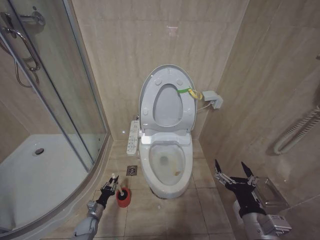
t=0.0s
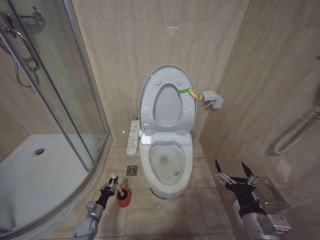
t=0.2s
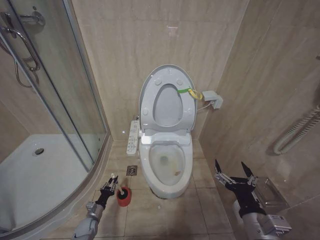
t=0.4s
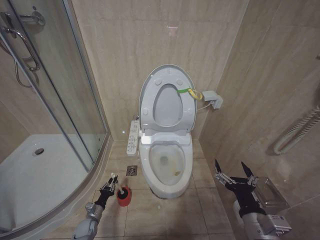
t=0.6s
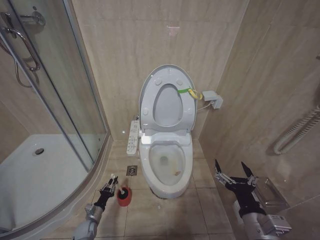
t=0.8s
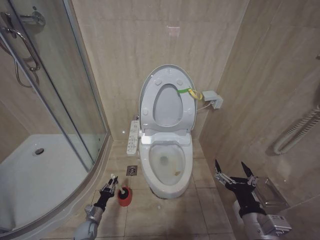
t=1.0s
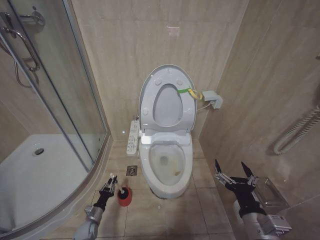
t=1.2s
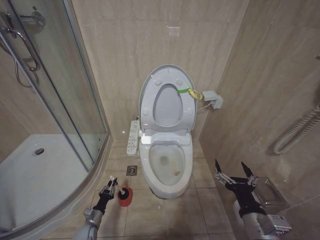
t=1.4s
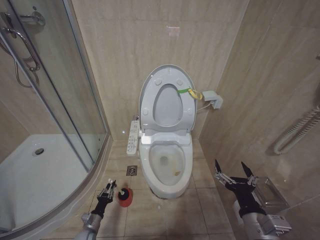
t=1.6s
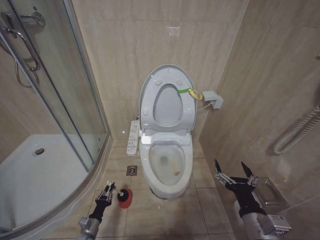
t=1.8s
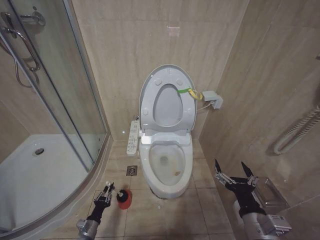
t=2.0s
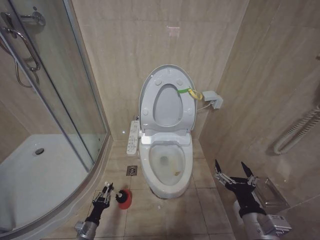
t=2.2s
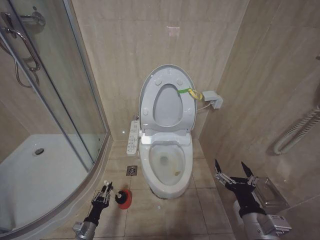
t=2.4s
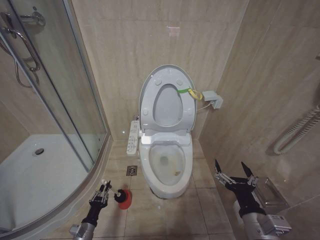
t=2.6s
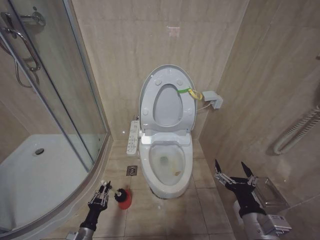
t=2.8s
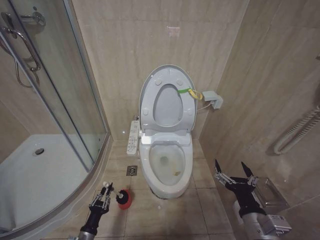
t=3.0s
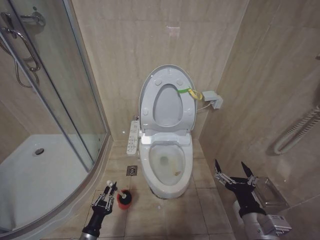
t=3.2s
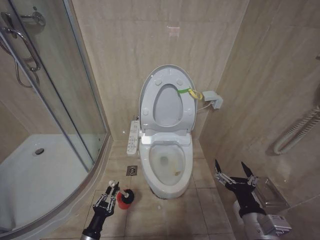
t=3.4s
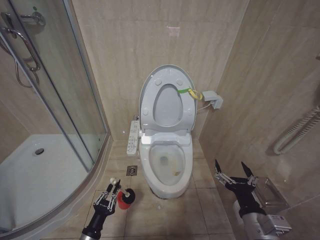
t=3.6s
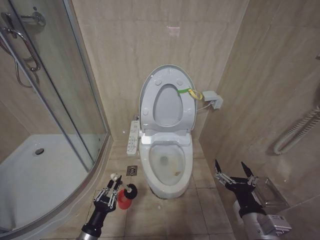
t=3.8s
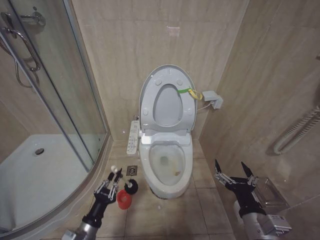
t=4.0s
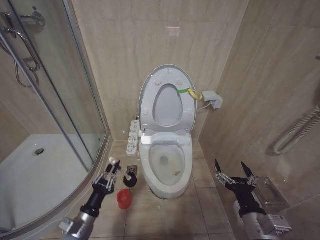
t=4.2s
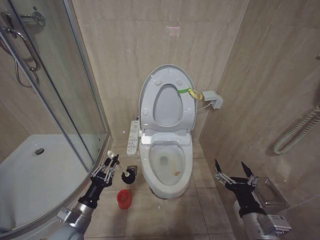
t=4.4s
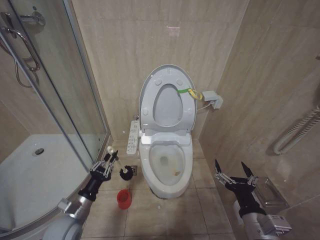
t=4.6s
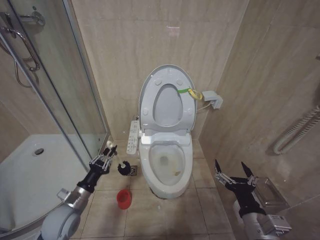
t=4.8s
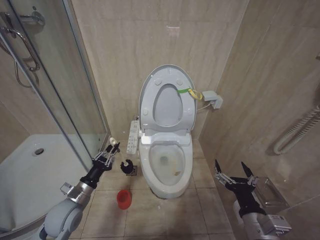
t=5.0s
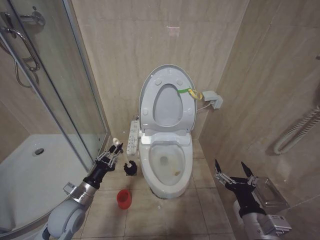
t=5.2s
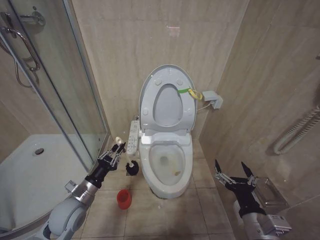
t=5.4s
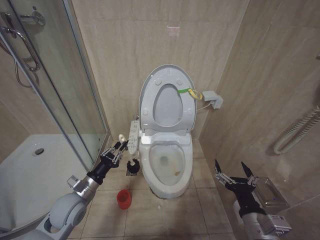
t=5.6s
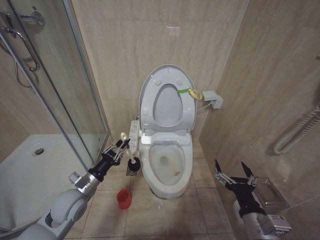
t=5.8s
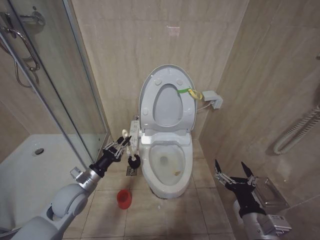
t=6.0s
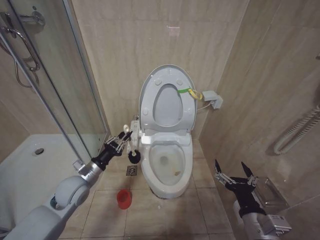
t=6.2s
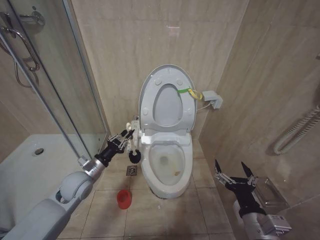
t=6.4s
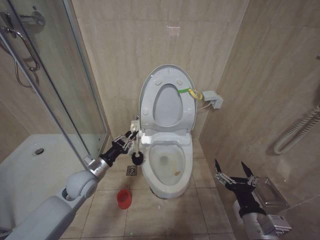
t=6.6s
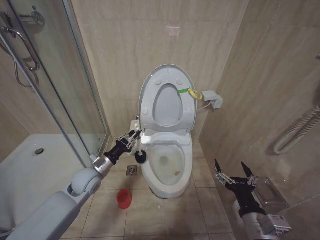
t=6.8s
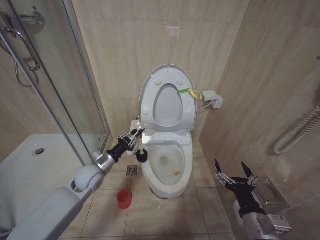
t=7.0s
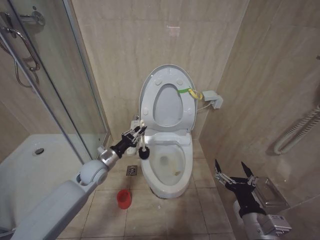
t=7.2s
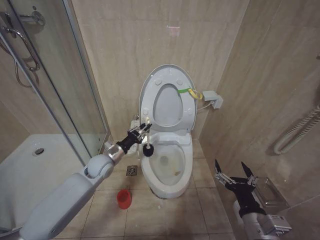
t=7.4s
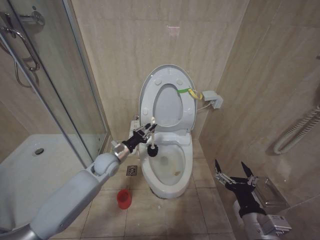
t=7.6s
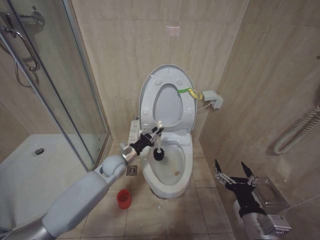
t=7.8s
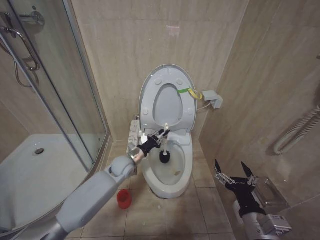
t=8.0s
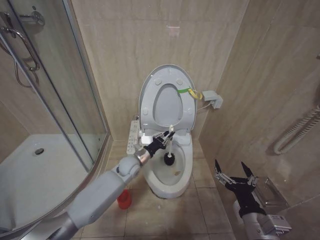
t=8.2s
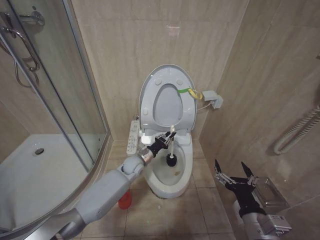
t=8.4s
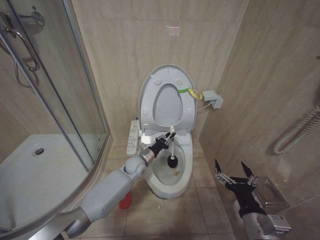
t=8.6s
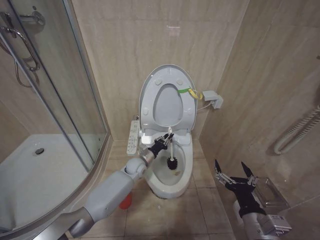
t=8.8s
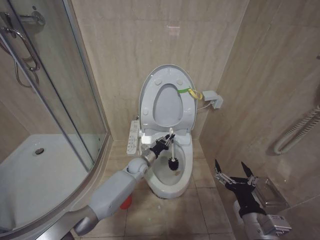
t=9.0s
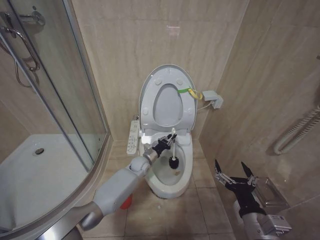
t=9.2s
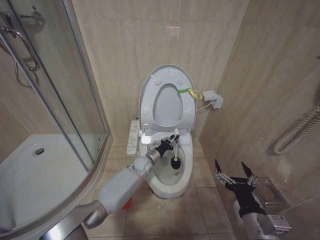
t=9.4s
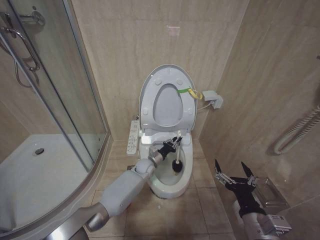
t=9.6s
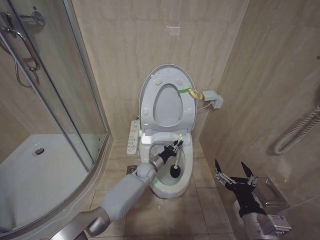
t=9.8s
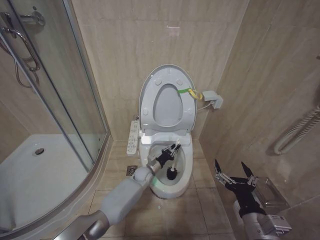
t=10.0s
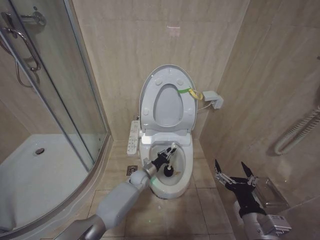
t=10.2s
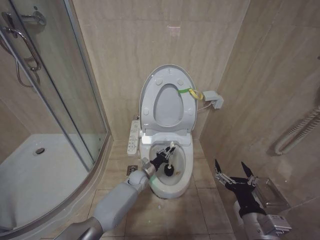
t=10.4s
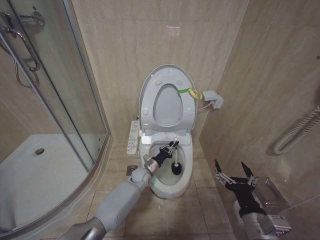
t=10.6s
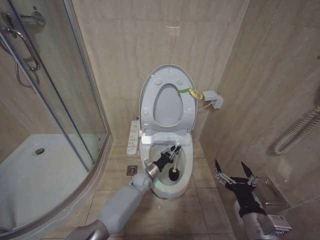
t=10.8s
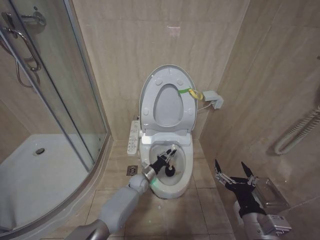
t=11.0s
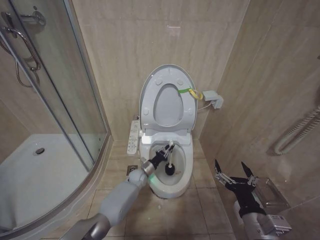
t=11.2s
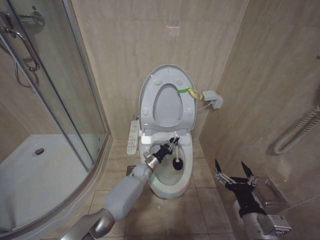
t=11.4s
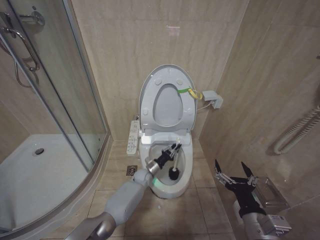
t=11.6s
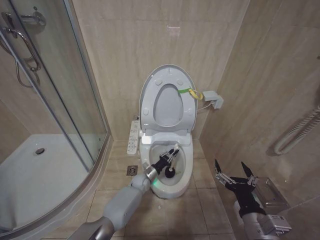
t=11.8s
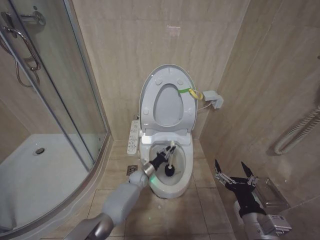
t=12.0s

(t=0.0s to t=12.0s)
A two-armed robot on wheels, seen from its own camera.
Task of the whole recording: Open the toilet lid, clean the toilet bowl with a toilet brush, close the toilet lid, and flush.
t=0.0s - t=1.6s: There are only small adjustments of the grippers.
t=1.6s - t=3.0s: The left gripper heads backward and upward, covering approximately 15 cm.
t=3.0s - t=4.4s: The left gripper goes about 15 cm upward.
t=4.4s - t=6.0s: The left gripper heads forward and upward, covering some 10 cm.
t=6.0s - t=7.6s: The left gripper moves forward and to the right, approximately 15 cm.
t=7.6s - t=9.0s: The left gripper goes approximately 15 cm to the right and downward.
t=9.0s - t=10.4s: The left gripper moves downward, approximately 10 cm.
t=10.4s - t=12.0s: The grippers move only a little.

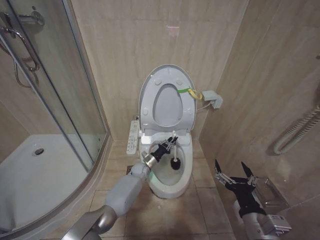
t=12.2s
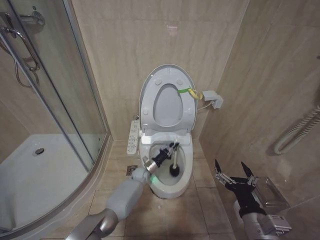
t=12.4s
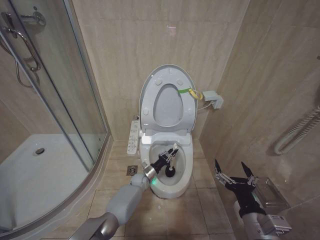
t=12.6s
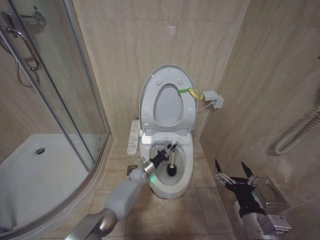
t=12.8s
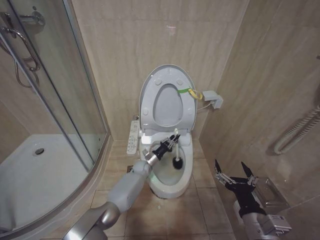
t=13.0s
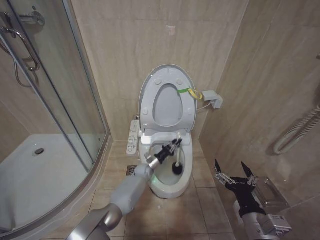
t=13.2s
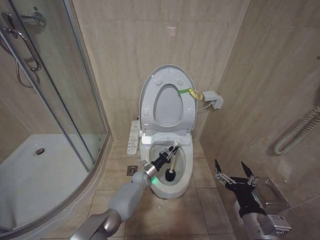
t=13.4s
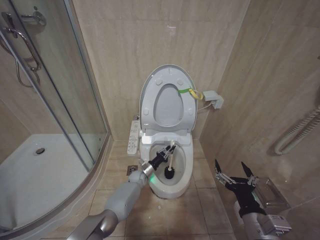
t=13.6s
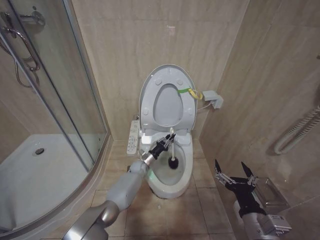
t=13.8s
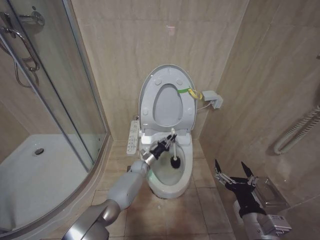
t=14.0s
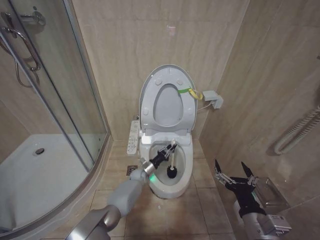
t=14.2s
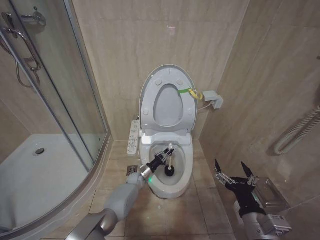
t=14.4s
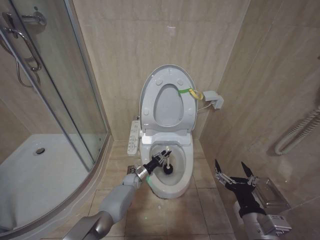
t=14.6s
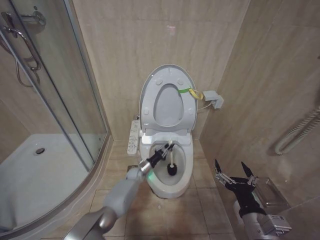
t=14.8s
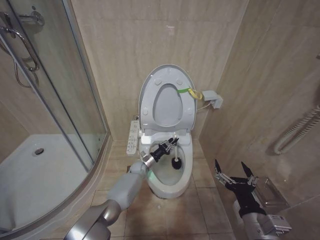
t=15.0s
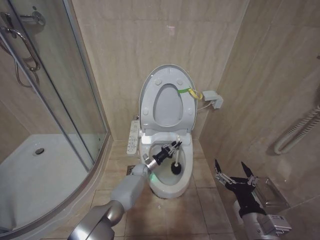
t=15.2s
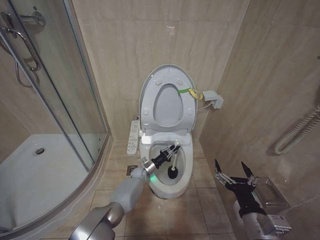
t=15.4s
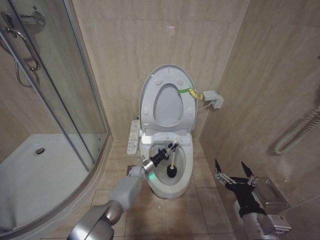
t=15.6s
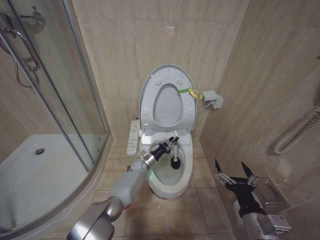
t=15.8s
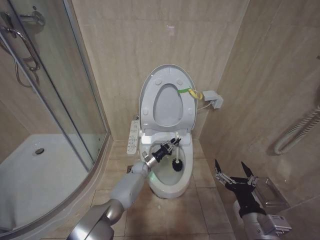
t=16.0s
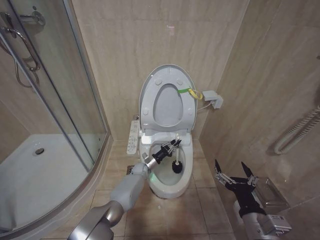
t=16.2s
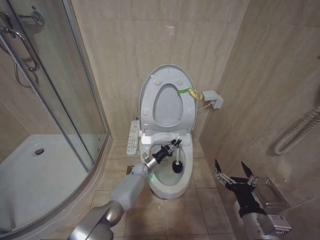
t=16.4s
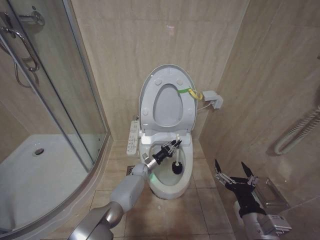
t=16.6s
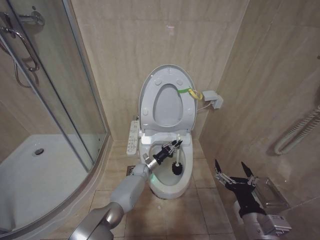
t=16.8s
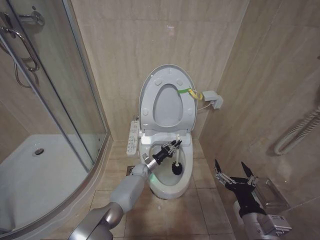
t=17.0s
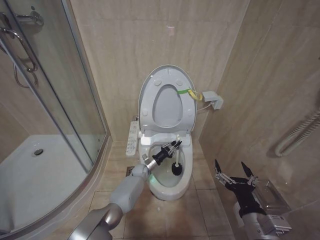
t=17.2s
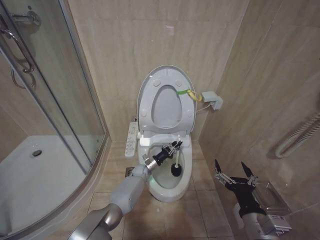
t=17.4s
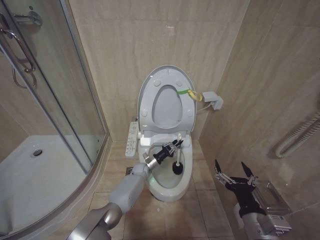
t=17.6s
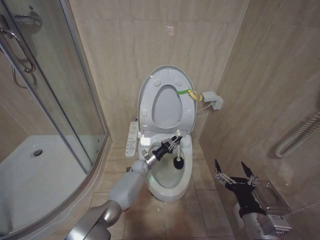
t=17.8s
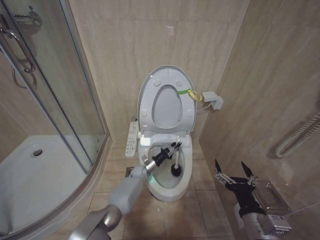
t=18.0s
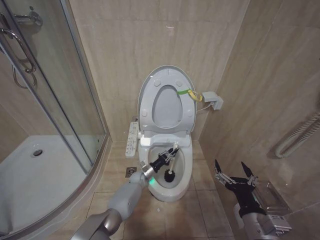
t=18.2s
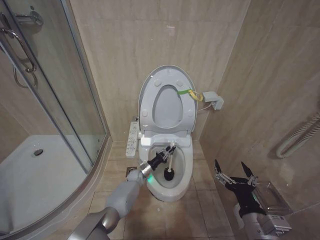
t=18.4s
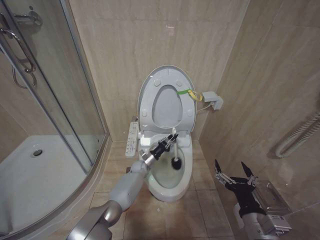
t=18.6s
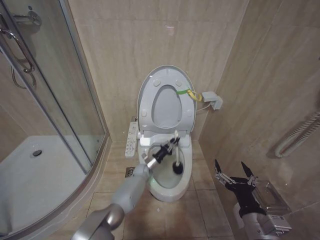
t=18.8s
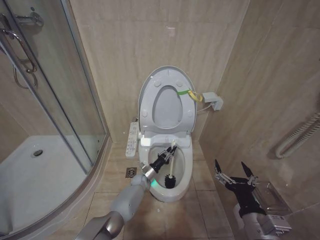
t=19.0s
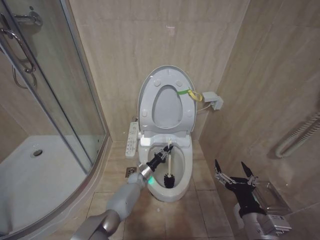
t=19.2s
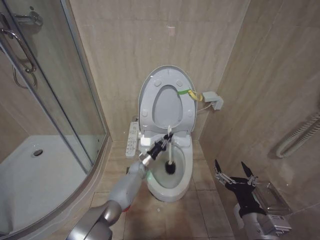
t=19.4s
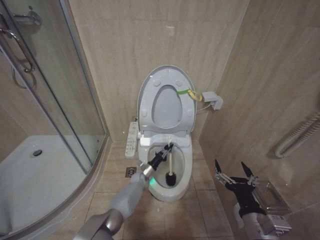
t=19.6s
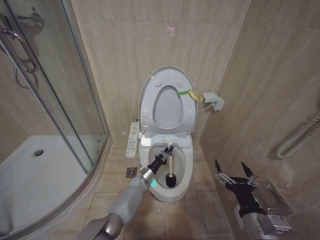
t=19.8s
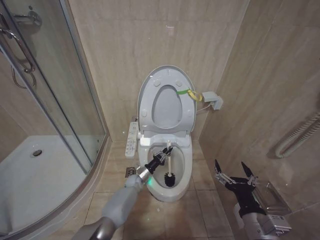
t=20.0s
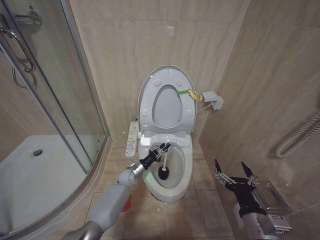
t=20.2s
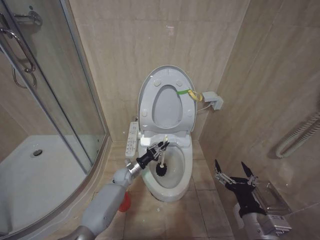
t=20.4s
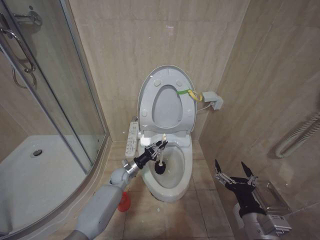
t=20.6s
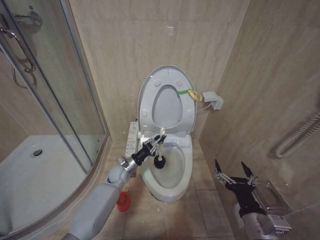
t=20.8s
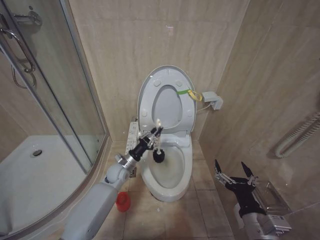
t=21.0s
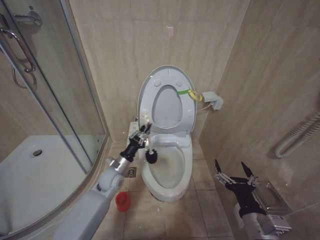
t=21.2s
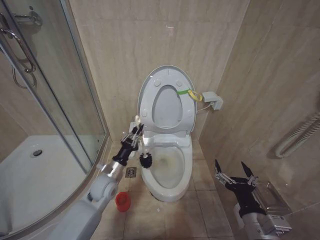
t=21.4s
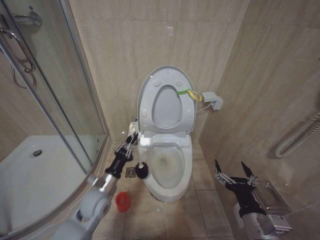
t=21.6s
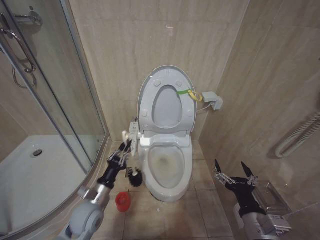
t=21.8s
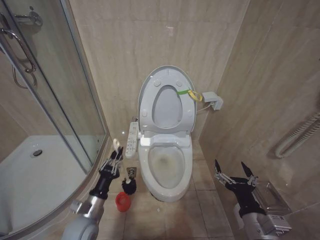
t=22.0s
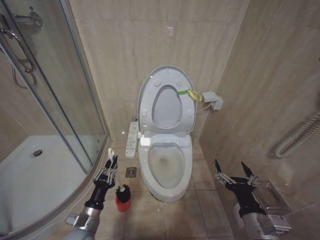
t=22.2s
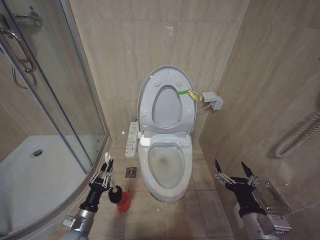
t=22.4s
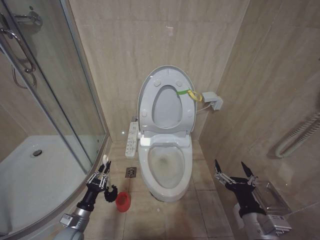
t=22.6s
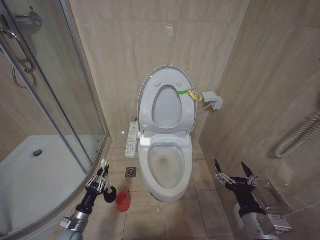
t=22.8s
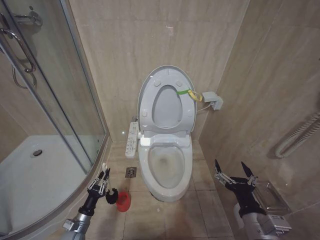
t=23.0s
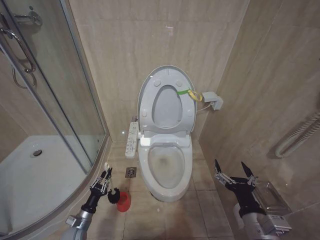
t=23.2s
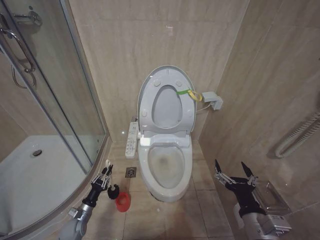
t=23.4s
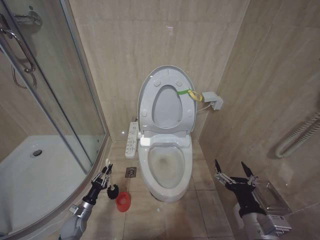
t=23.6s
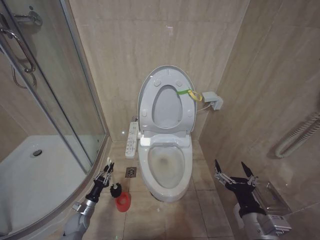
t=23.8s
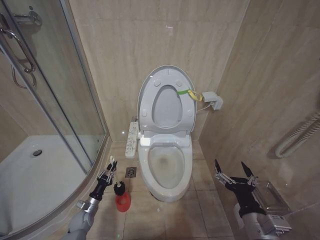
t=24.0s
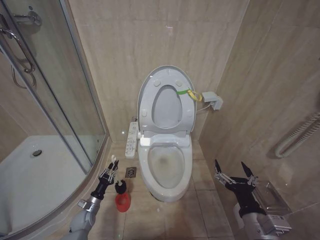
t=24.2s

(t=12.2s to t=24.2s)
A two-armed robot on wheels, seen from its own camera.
Task of the whole recording: Open the toilet lid, clean the toilet bowl with a toilet brush, close the toilet lid, and flush.
t=12.2s - t=13.8s: The left gripper goes up and down, roughly 5 cm each way, reversing 2 times.
t=13.8s - t=15.2s: The left gripper goes downward and returns, roughly 5 cm each way.
t=16.6s - t=18.2s: There are only small adjustments of the grippers.
t=18.2s - t=19.8s: The left gripper swings up and down, some 10 cm each way, with 3 reversals.
t=19.8s - t=21.2s: The left gripper is displaced upward and to the left by some 20 cm.
t=21.2s - t=22.6s: The left gripper is displaced backward, to the left and downward by roughly 25 cm.
t=22.6s - t=24.2s: The left gripper goes approximately 15 cm downward and forward.
